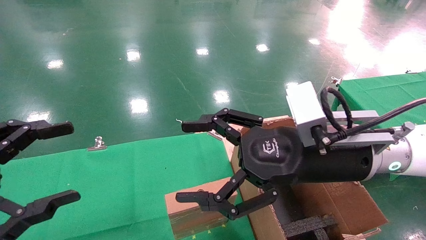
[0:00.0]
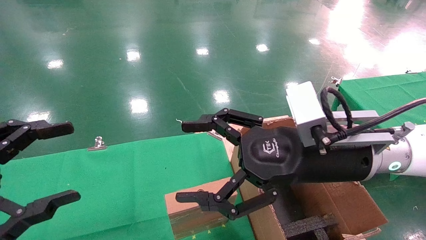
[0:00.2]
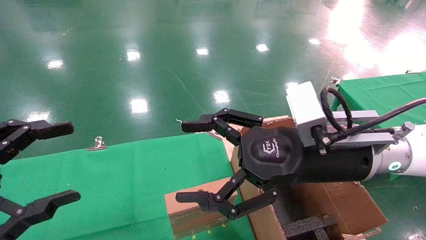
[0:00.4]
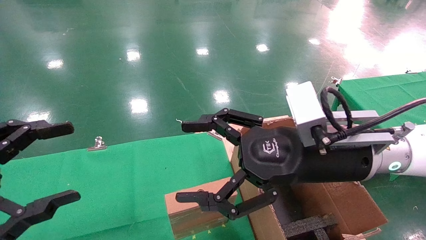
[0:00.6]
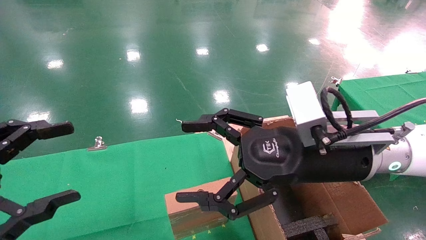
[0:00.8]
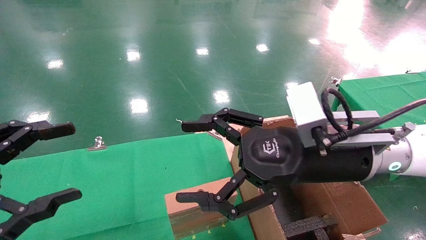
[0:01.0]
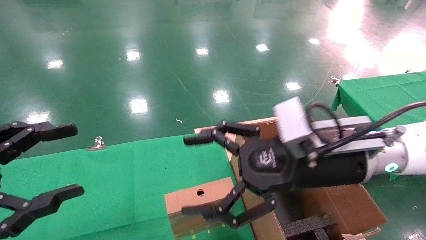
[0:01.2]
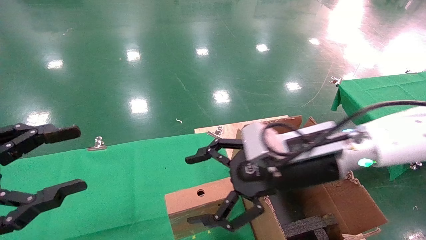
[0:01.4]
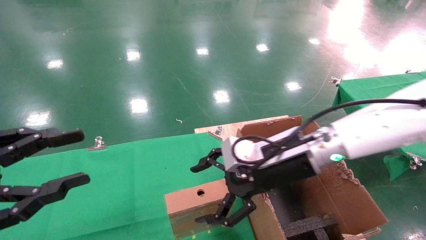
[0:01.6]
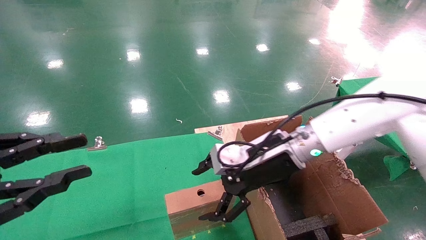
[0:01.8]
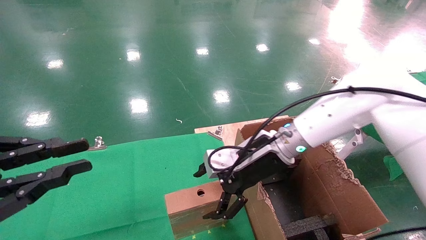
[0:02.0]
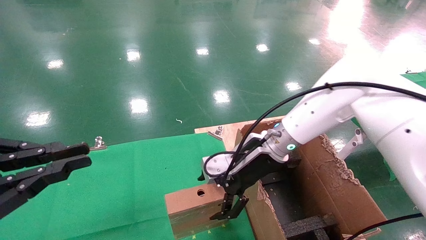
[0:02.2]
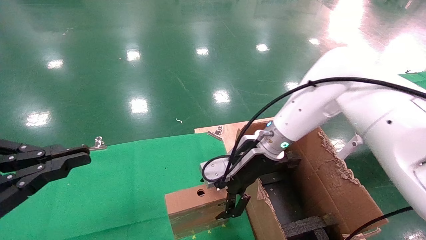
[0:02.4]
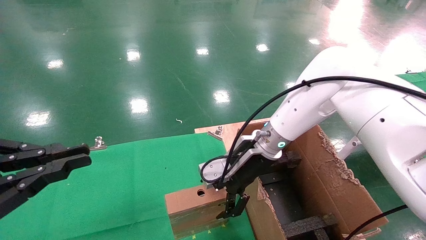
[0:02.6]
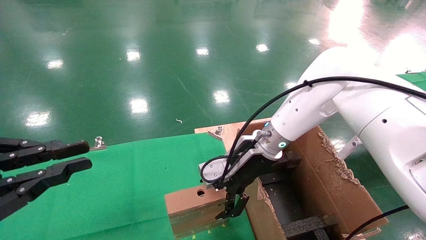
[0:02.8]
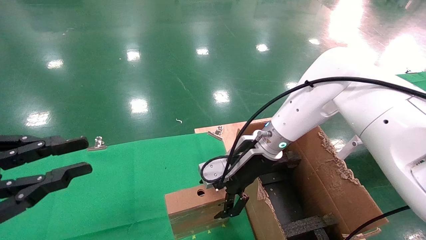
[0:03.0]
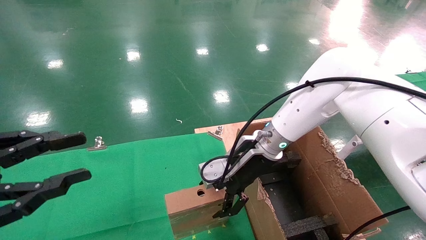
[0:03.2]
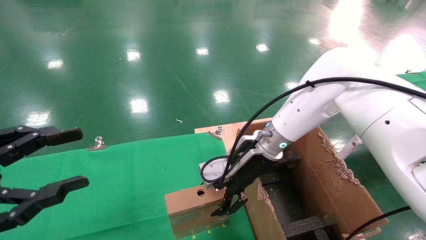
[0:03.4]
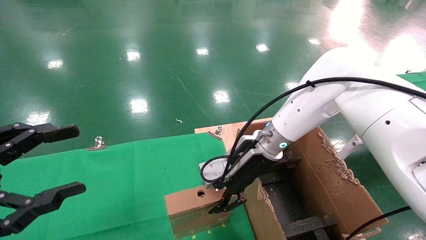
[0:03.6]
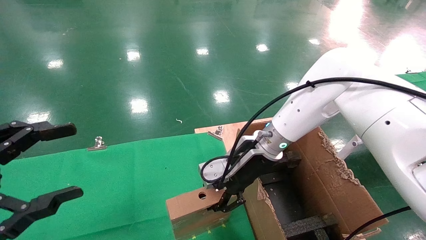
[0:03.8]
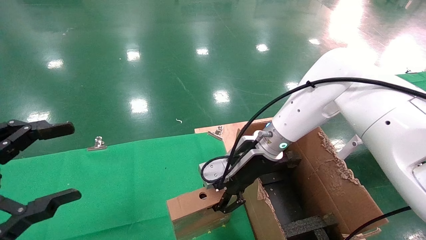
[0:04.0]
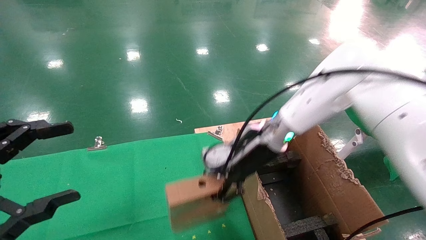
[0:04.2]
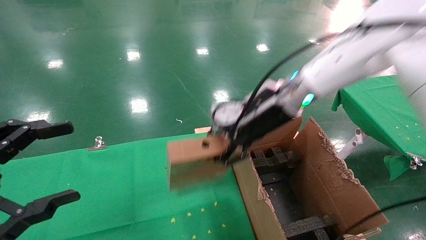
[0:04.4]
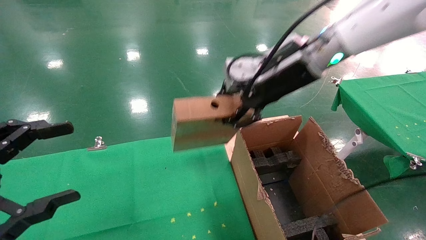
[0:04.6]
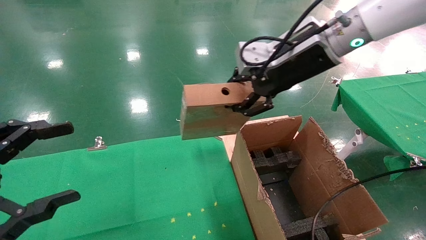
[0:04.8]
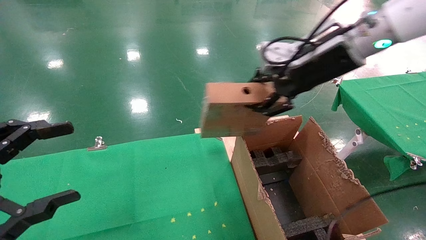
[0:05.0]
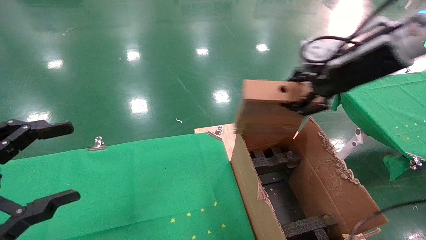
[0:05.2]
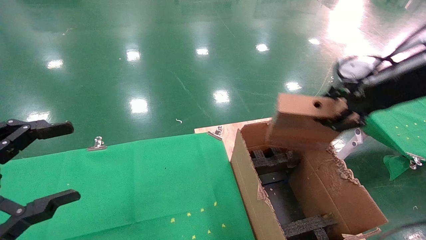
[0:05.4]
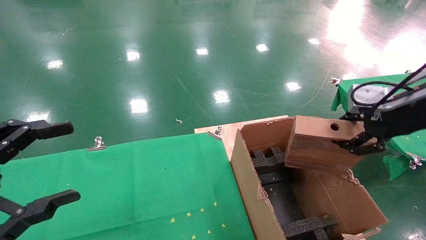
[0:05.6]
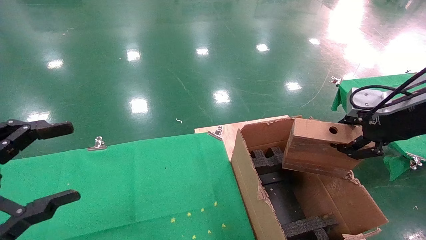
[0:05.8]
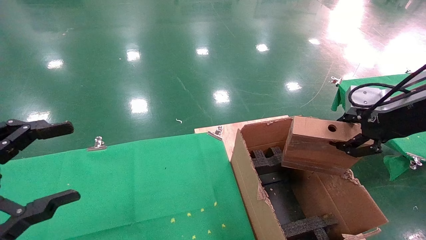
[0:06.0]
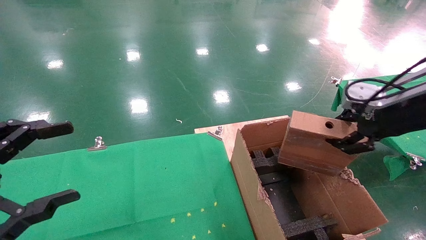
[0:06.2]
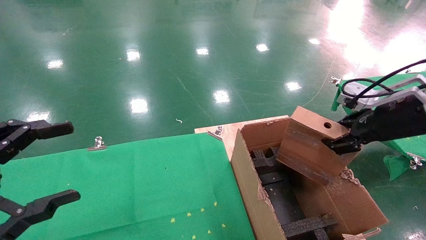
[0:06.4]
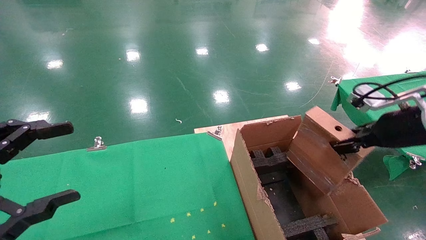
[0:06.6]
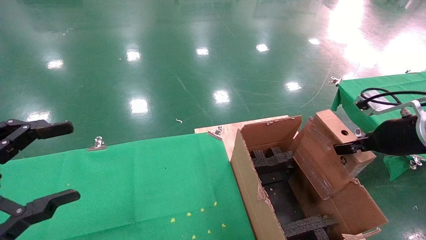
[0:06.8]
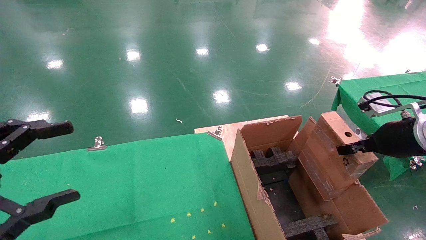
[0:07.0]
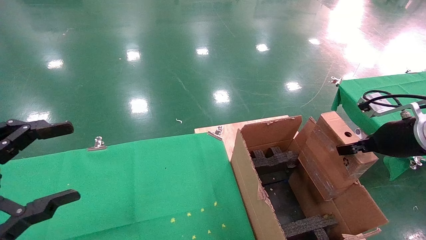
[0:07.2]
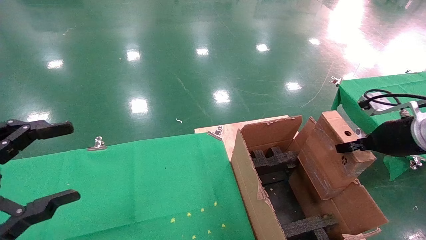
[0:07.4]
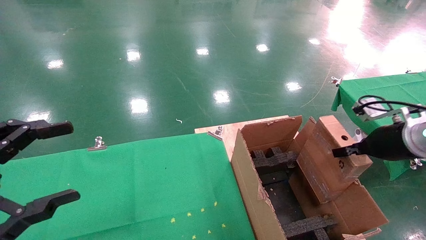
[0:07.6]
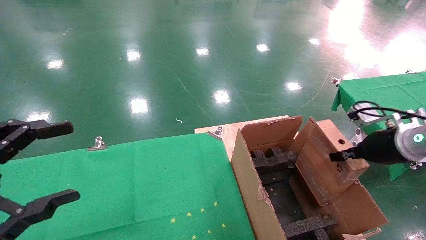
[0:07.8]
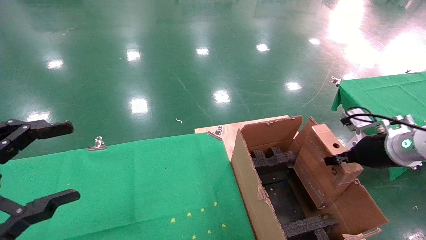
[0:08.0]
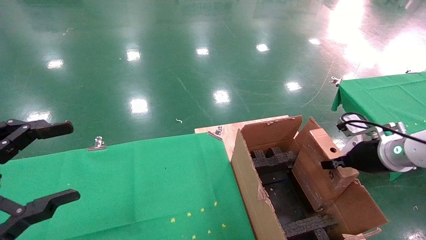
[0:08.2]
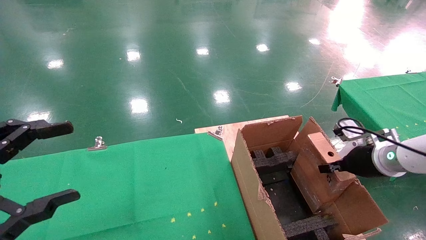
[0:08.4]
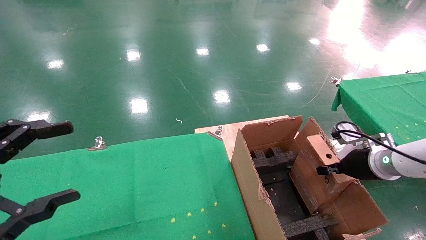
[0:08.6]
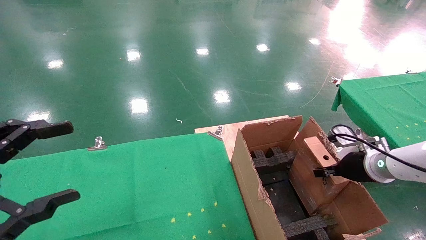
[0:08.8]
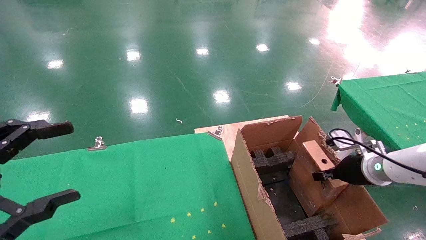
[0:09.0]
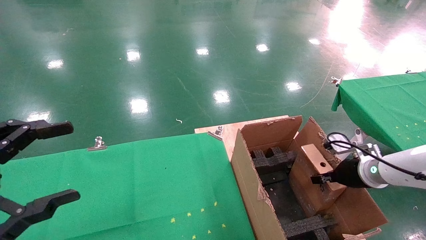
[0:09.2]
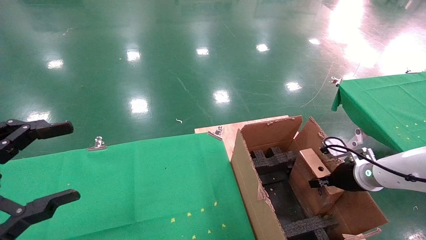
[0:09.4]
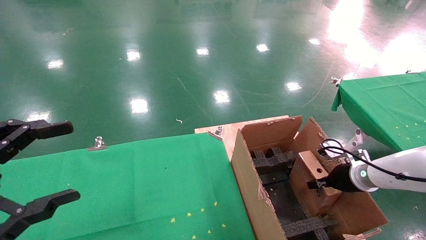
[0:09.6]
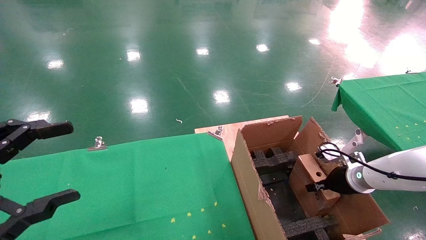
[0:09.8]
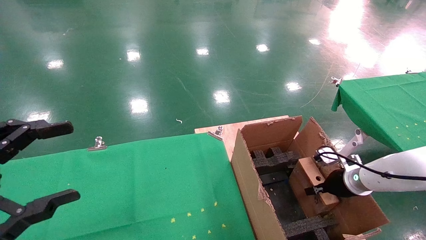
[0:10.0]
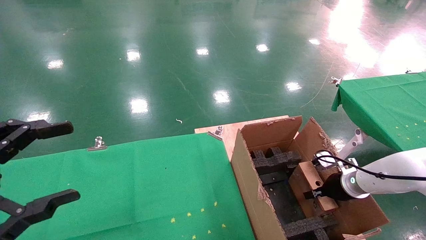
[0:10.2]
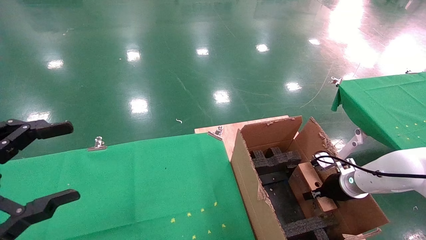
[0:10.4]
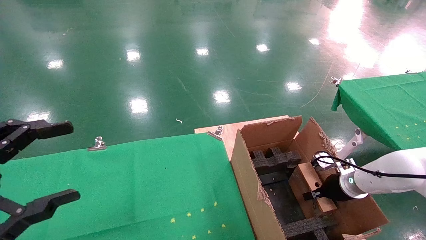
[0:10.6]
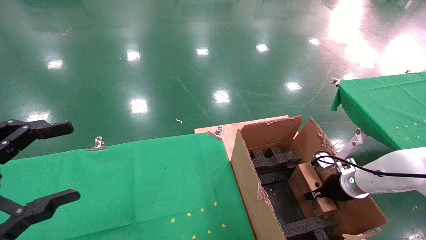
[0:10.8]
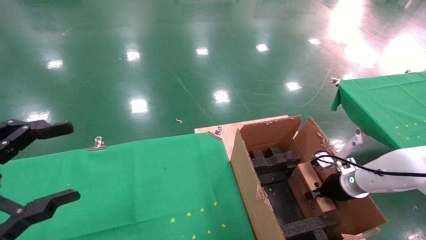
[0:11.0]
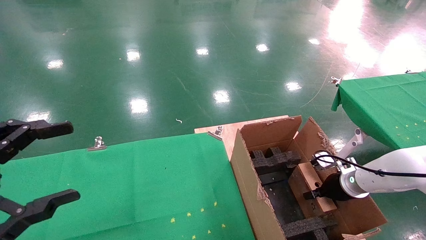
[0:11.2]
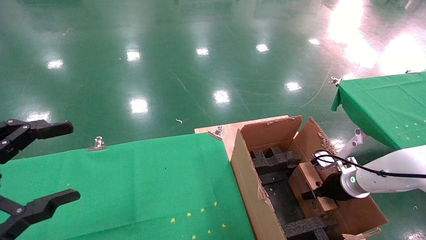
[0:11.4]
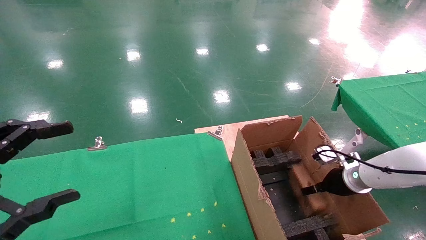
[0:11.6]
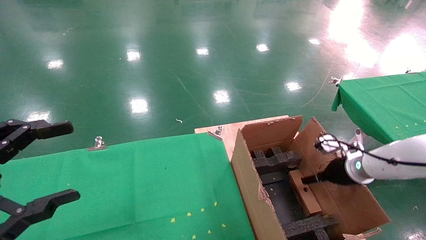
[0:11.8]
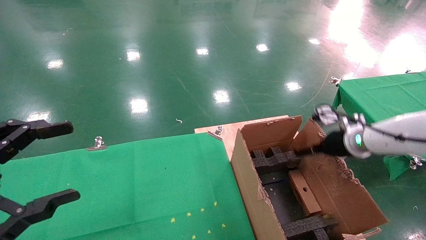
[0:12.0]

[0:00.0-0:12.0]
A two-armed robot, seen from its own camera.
Task of the whole recording: using a robotic arm to pick up a cardboard box and palace it the carton.
Step, 0:01.4 to 0:03.8: Pick up the mouse and the power cord paper box.
0:00.0 to 0:01.6: The right gripper shifts approximately 10 cm forward. The left gripper closes.
0:01.6 to 0:03.0: The left gripper closes up; the right gripper is displaced forward by some 10 cm.
0:03.0 to 0:04.4: The left gripper opens its fingers. The right gripper shifts approximately 10 cm upward, and closes its fingers.
0:04.4 to 0:06.0: The right gripper goes some 25 cm to the right and backward.
0:06.0 to 0:07.6: The right gripper goes some 10 cm downward.
0:07.6 to 0:09.0: The right gripper travels downward and forward by approximately 10 cm.
0:09.0 to 0:10.4: The right gripper heads downward, covering about 10 cm.
0:10.4 to 0:12.0: The right gripper goes roughly 15 cm upward, and opens up.

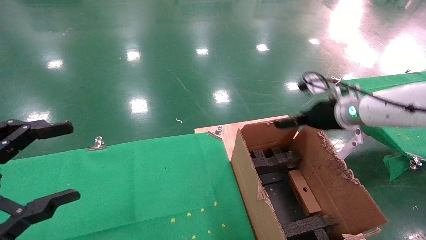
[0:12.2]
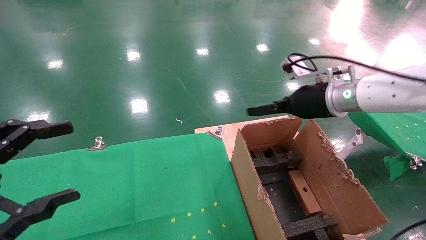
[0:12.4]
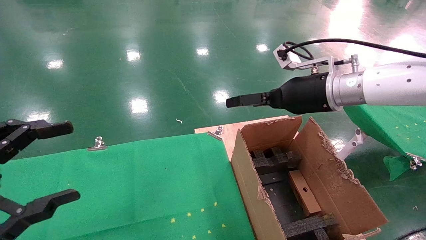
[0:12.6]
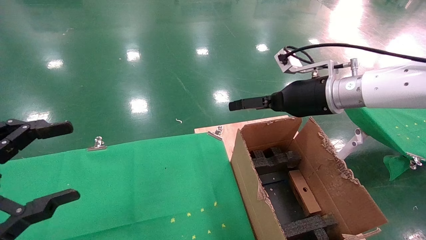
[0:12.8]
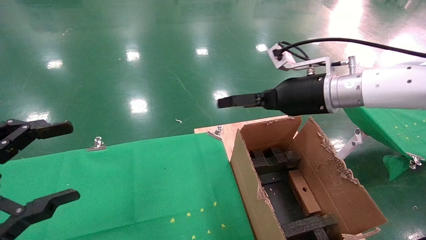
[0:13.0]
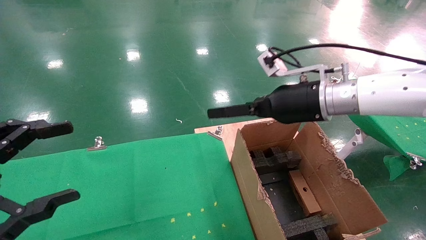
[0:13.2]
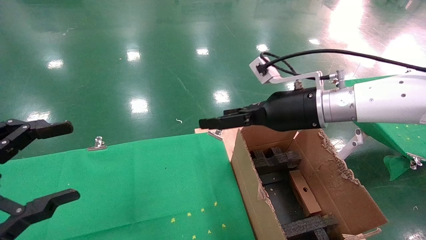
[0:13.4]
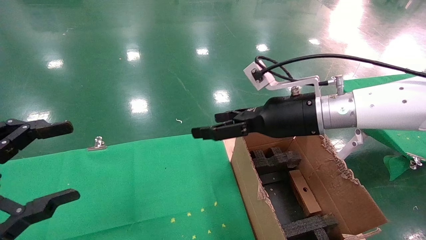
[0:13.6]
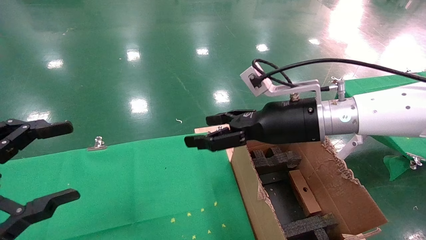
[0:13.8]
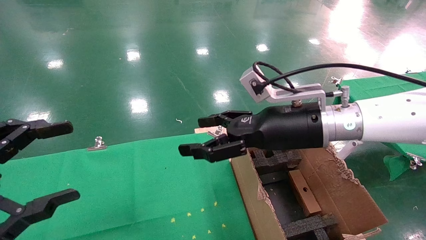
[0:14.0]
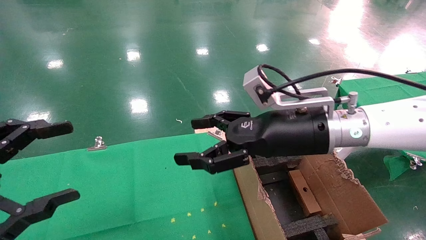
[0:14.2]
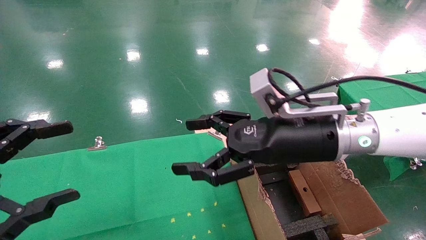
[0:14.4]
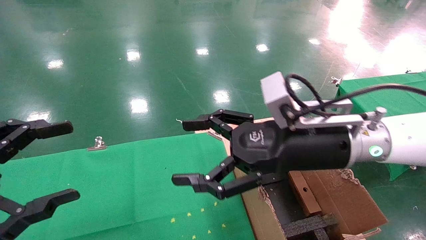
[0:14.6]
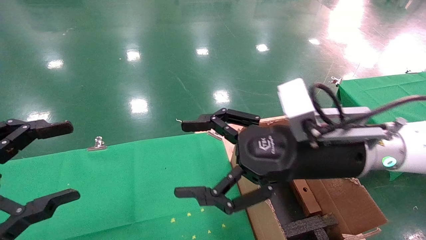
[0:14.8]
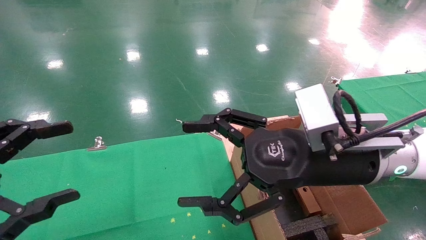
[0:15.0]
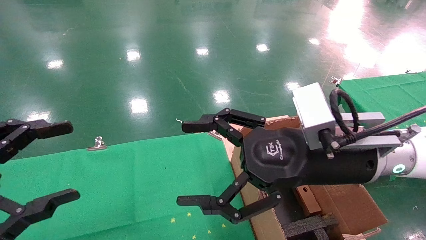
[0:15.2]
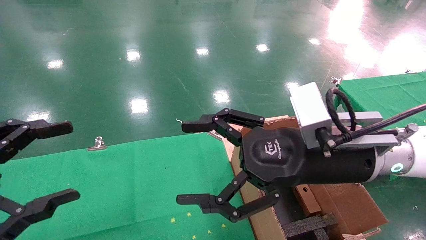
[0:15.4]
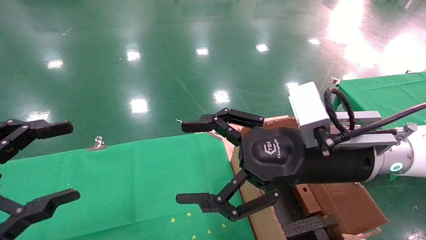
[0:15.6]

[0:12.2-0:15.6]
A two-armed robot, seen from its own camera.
Task of the whole recording: using a robotic arm to pick up a cardboard box and palace it the carton.
0:12.2 to 0:13.8: The right gripper is displaced to the left and backward by about 15 cm.
0:13.8 to 0:15.6: The right gripper shifts some 10 cm backward.

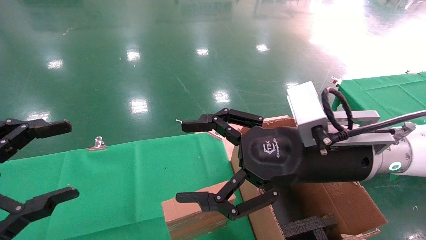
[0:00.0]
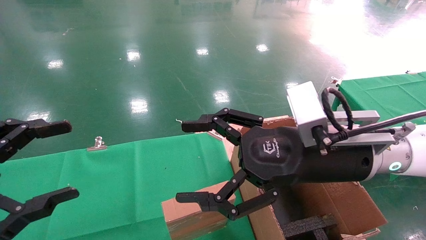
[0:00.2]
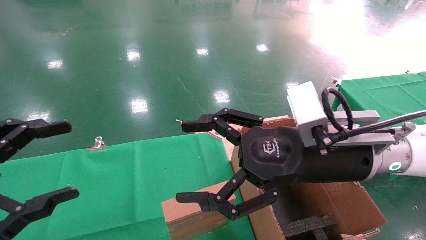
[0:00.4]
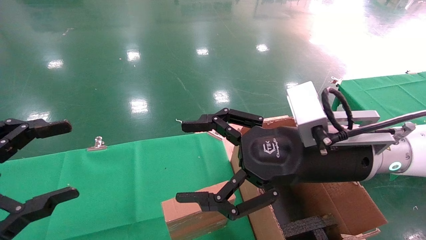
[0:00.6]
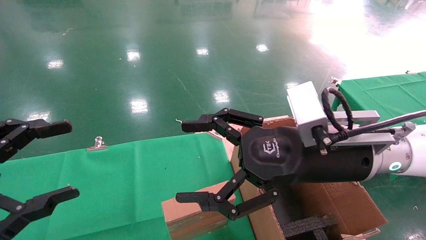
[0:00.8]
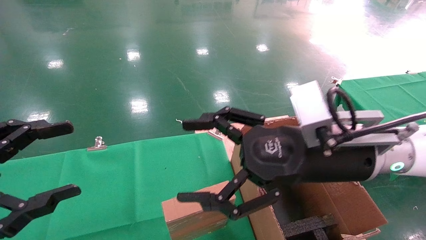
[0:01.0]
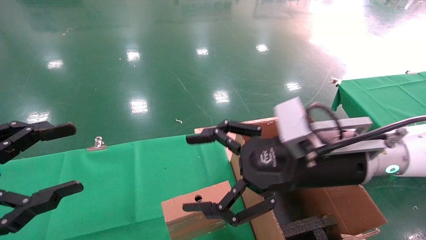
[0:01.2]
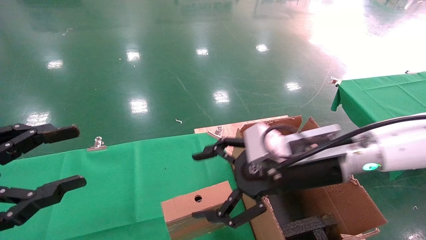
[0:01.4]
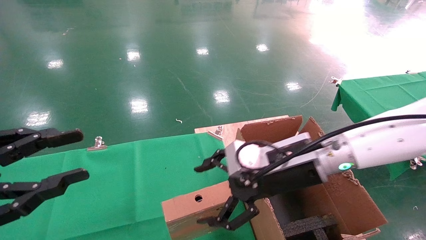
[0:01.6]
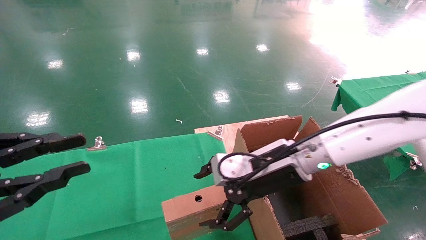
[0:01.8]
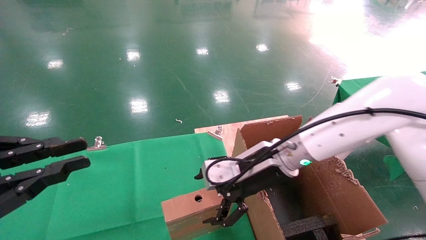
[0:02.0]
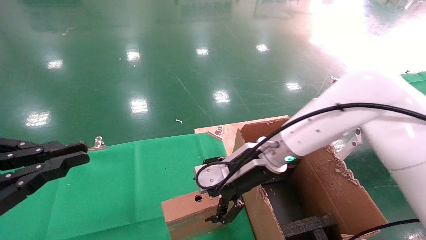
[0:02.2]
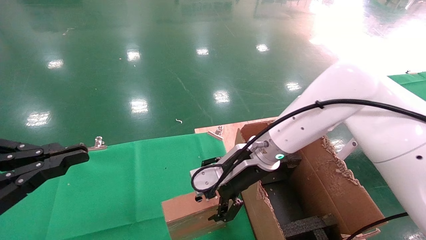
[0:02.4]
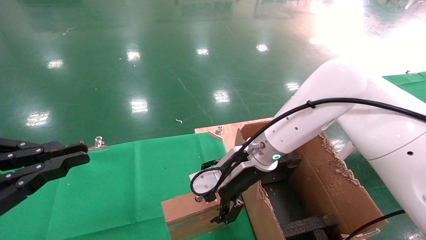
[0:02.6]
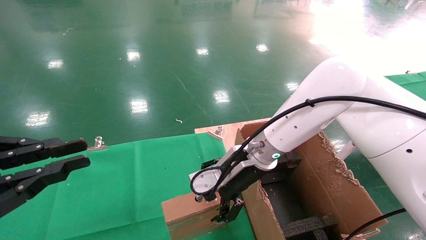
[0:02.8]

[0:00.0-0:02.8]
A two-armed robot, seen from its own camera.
Task of the whole recording: using a robotic arm to pick up a cardboard box and palace it the carton.
0:01.4 to 0:02.8: The left gripper closes its fingers. Meanwhile the right gripper shifts some 10 cm forward and to the left.
